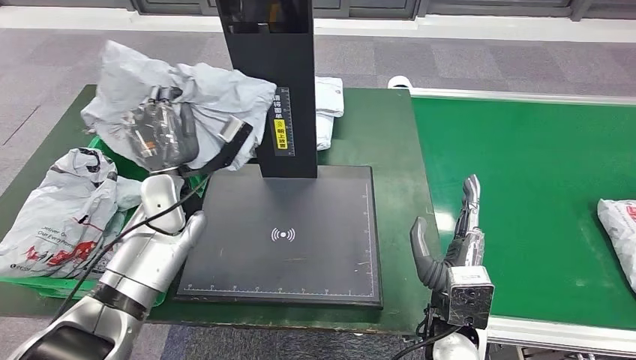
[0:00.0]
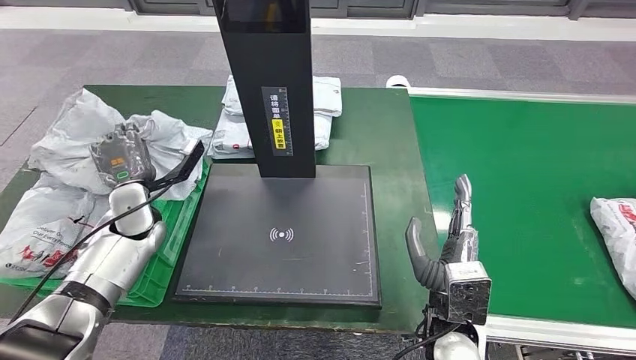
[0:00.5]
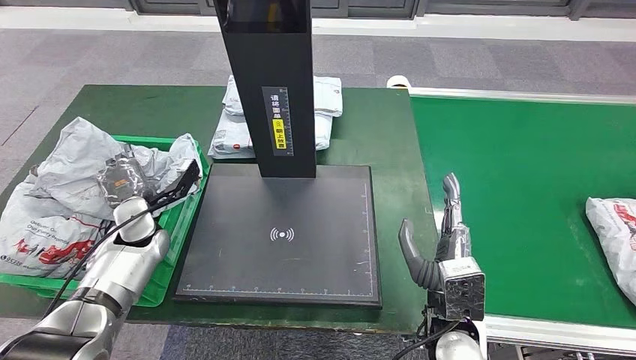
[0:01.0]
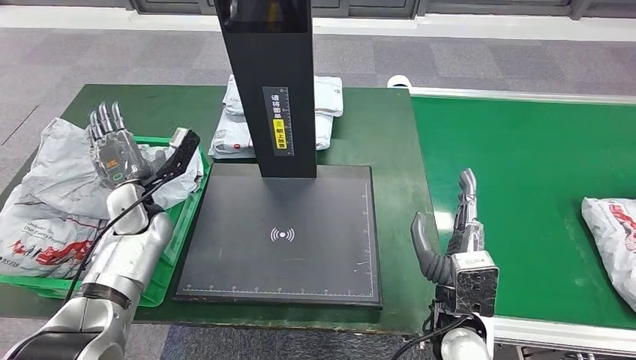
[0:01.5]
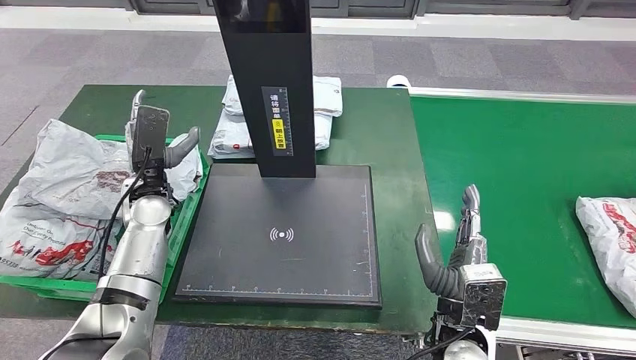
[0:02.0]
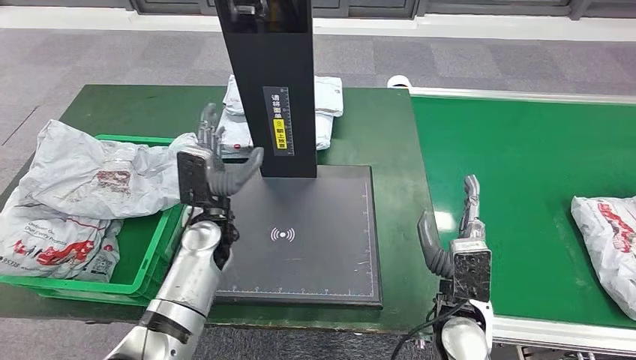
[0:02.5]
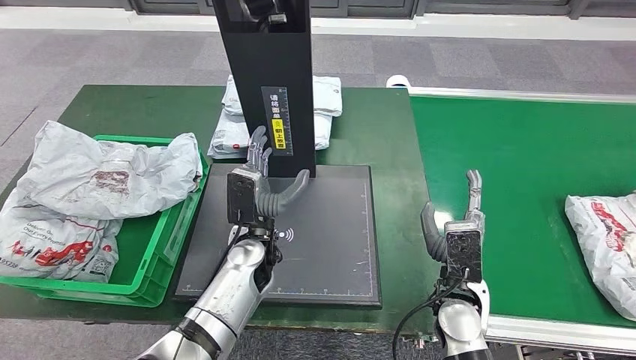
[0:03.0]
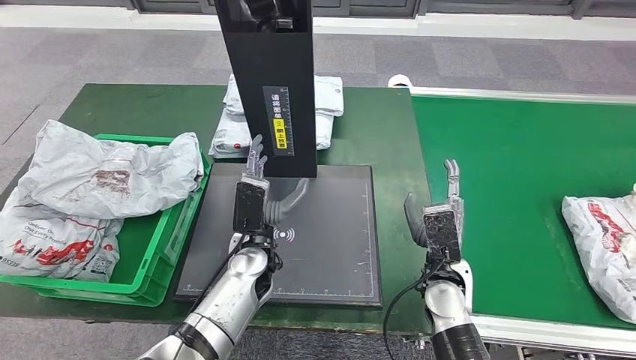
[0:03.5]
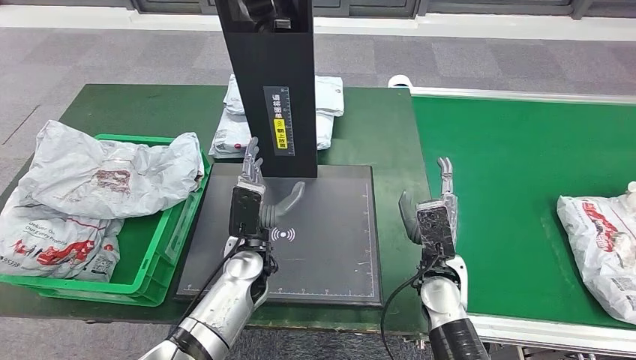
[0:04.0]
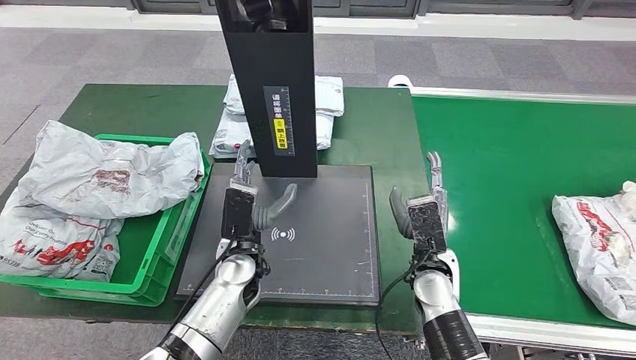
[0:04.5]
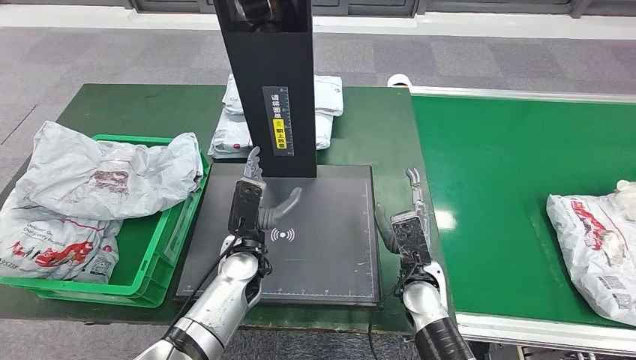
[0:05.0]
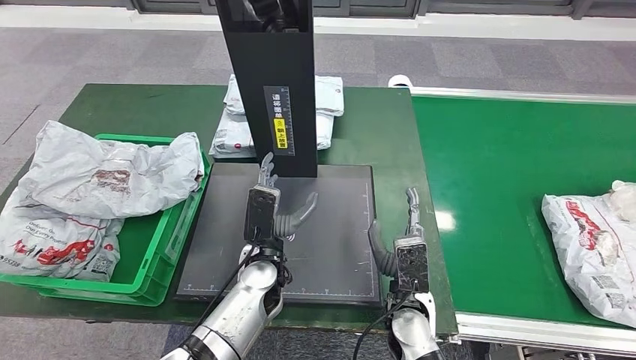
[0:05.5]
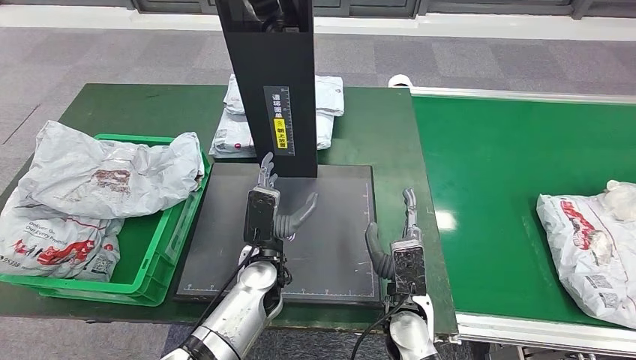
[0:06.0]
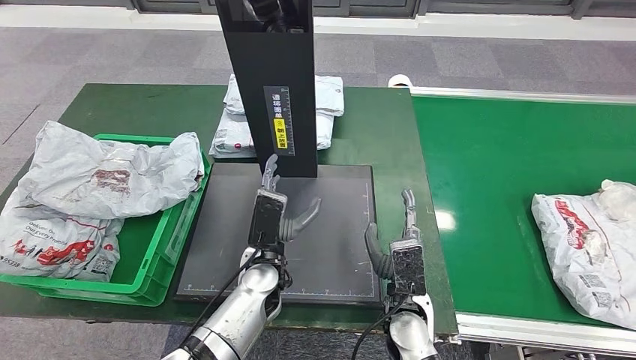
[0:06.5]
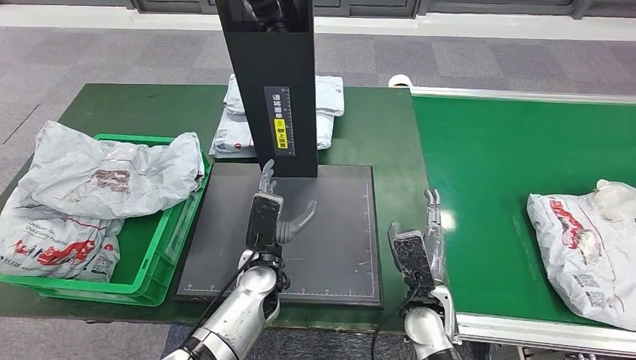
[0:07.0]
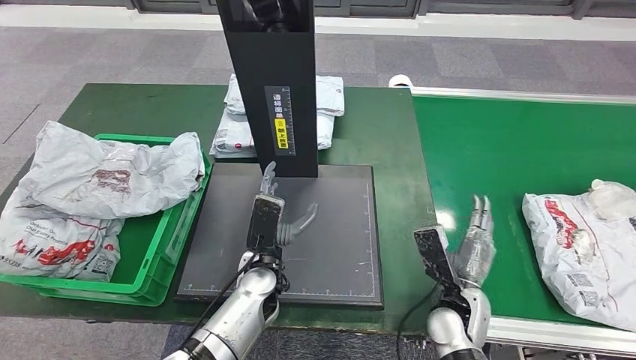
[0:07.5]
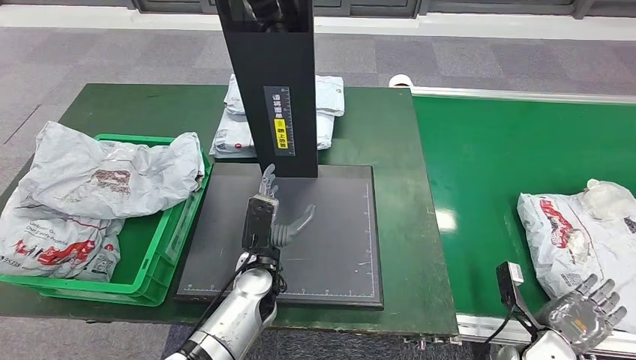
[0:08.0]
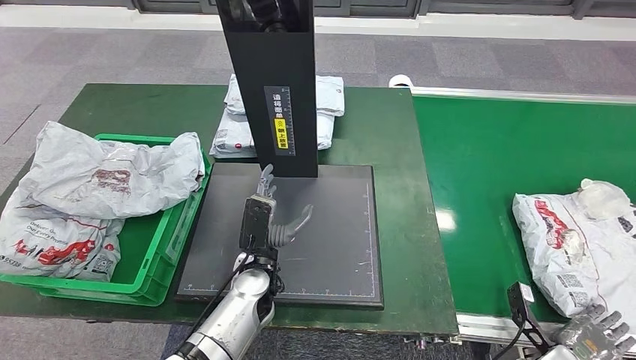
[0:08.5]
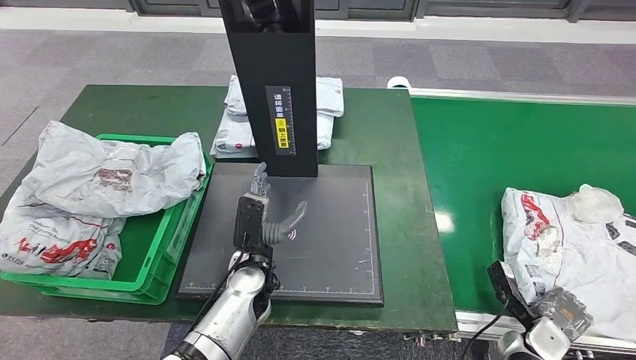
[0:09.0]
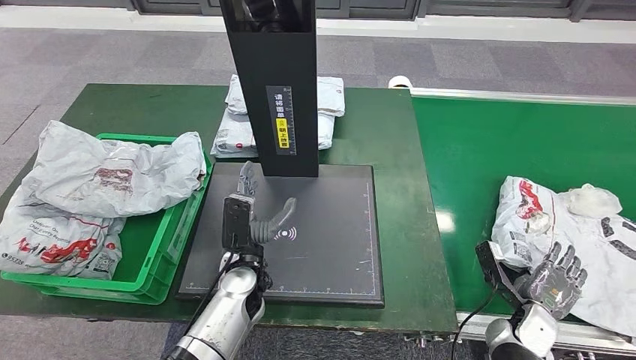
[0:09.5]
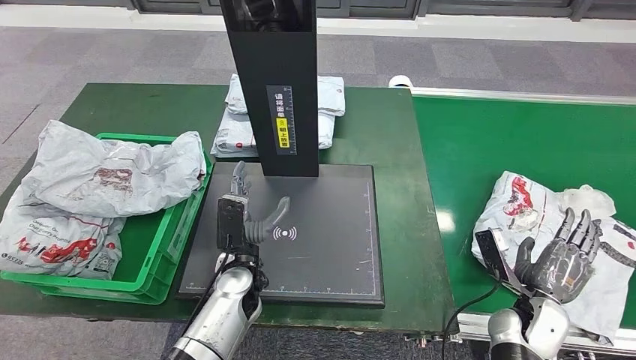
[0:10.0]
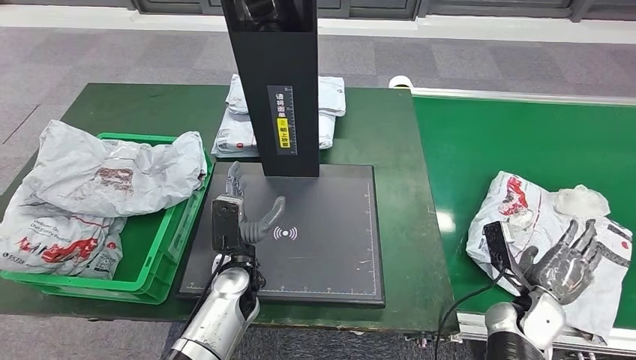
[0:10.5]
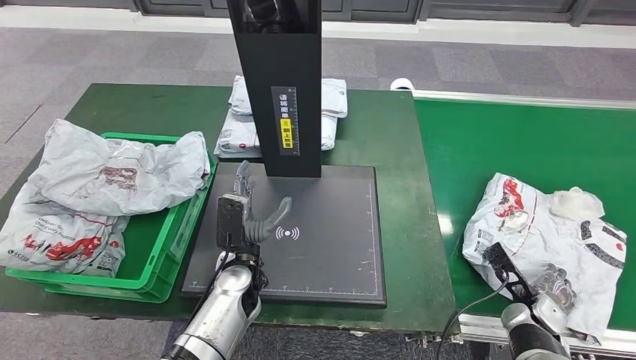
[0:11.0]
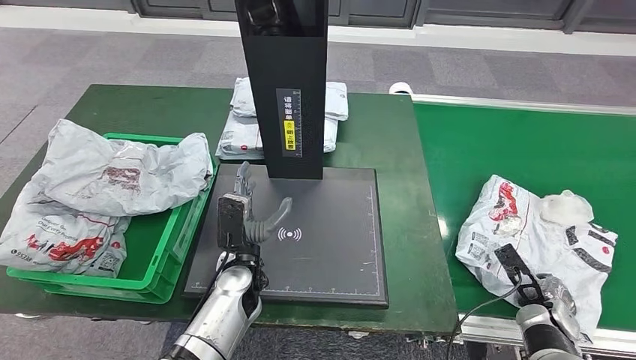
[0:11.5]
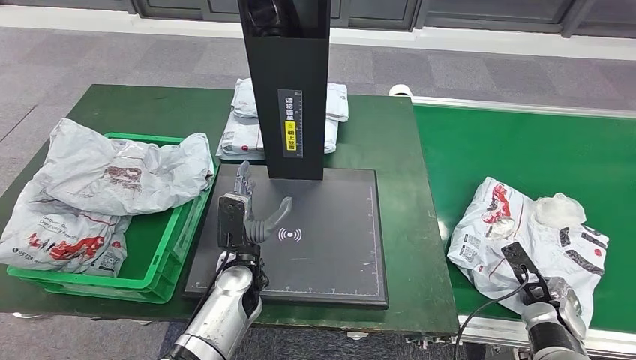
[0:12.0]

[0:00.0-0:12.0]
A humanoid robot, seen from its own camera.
Step, 0:00.0 to 0:02.0: Place the parcel into the delivery box.
0:04.0 to 0:06.0: The right hand shifts approximately 10 cm to the left and backward.
0:06.0 to 0:08.0: The right hand heads to the right, covering some 25 cm.
0:08.0 to 0:10.0: The right hand is displaced upward by approximately 5 cm.

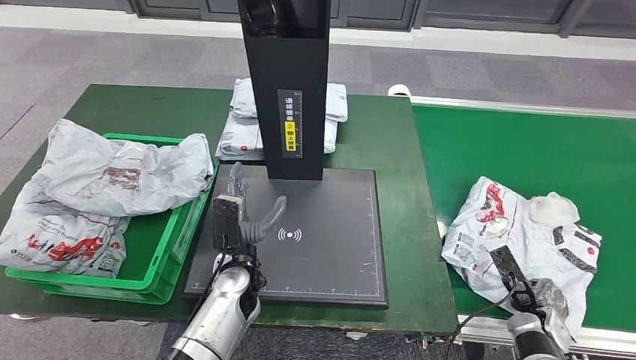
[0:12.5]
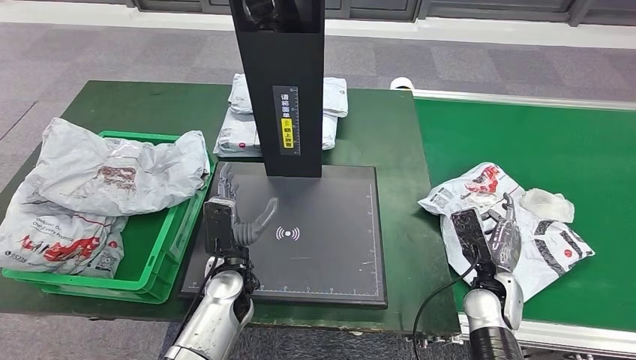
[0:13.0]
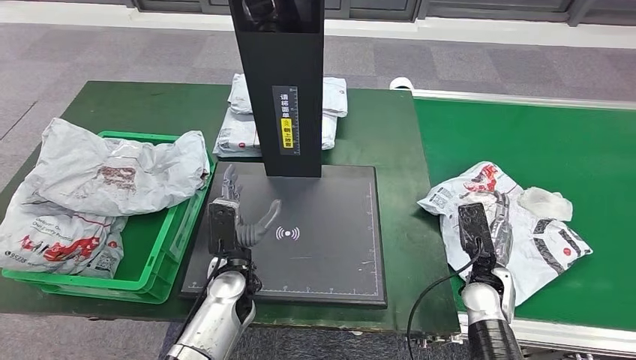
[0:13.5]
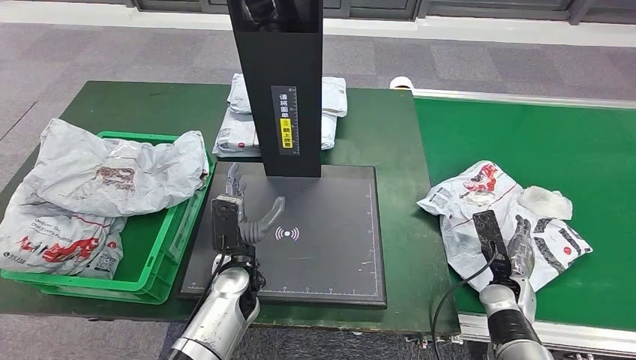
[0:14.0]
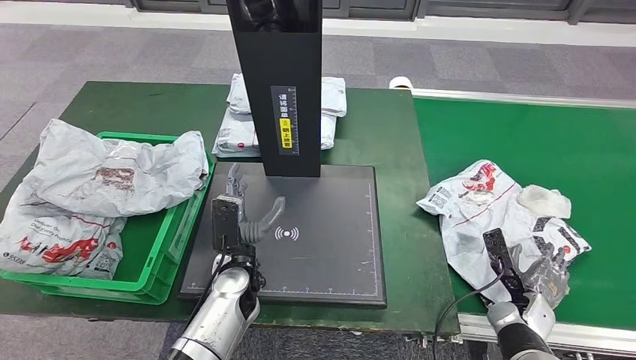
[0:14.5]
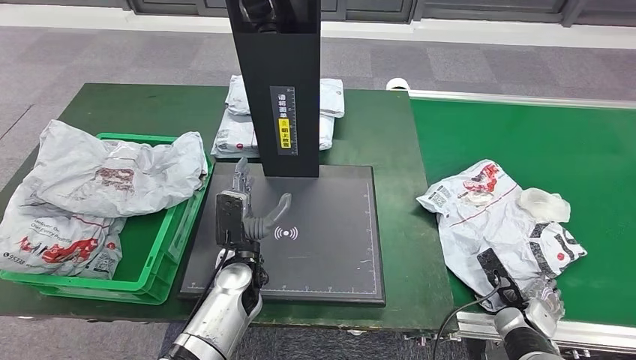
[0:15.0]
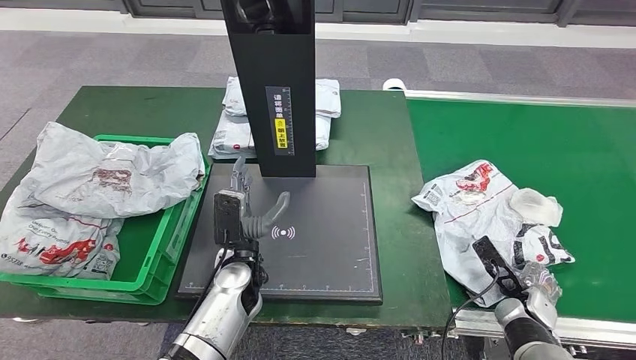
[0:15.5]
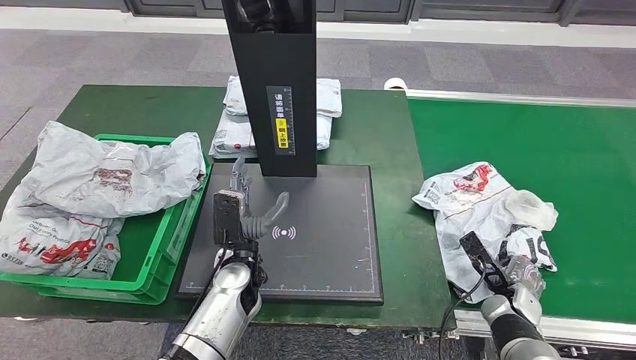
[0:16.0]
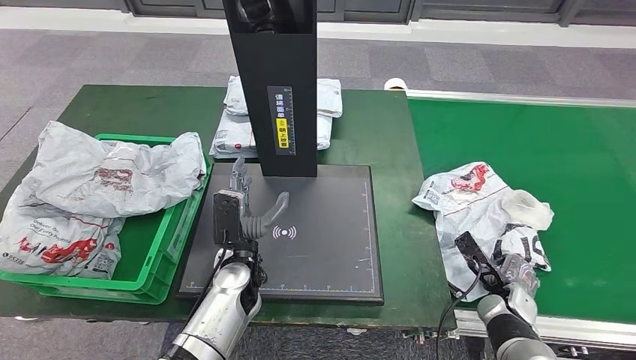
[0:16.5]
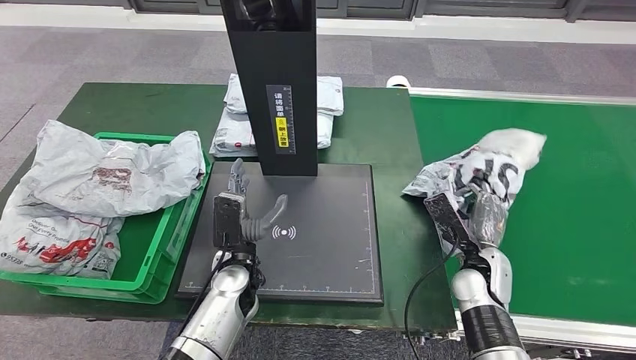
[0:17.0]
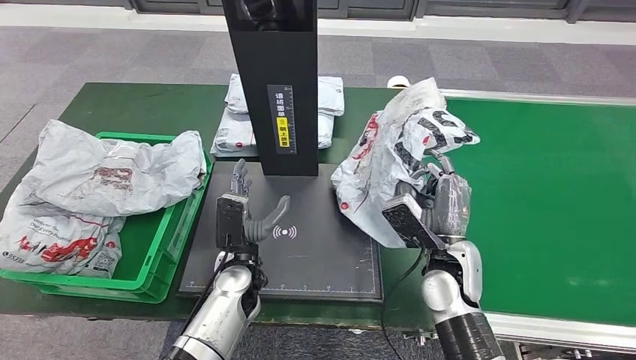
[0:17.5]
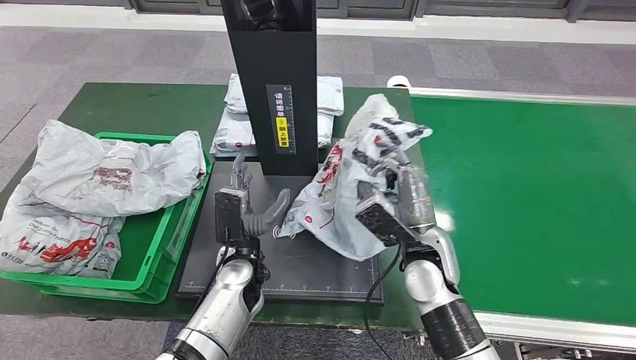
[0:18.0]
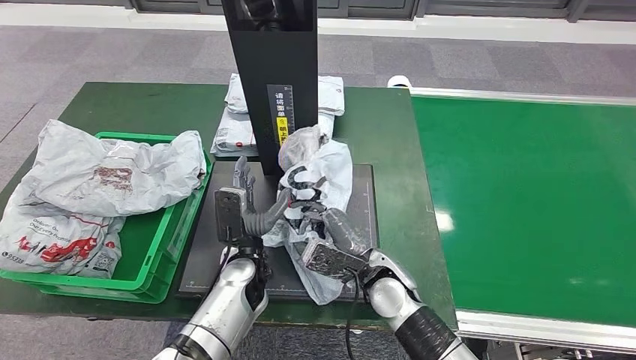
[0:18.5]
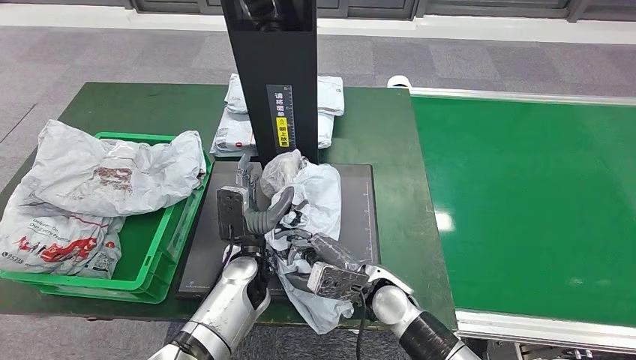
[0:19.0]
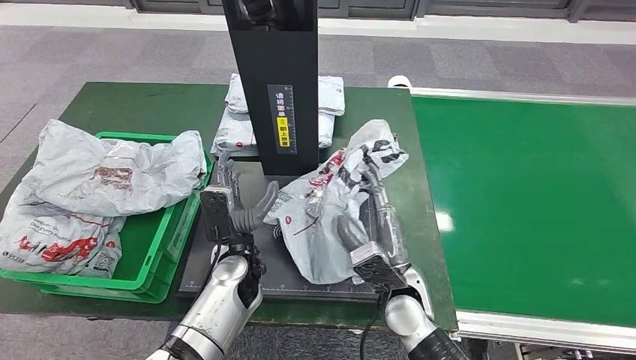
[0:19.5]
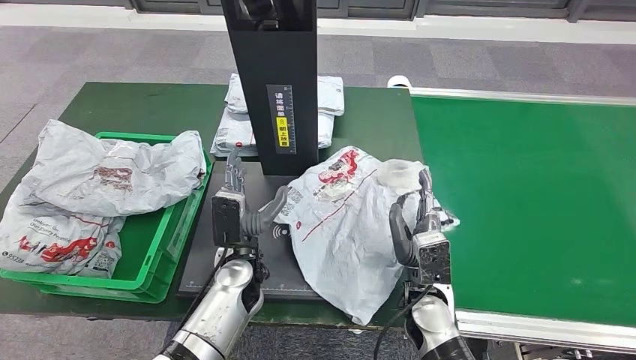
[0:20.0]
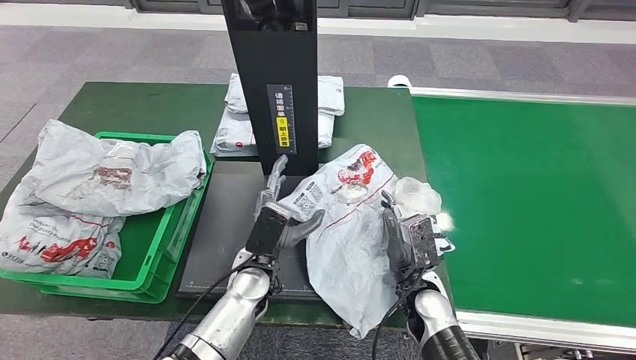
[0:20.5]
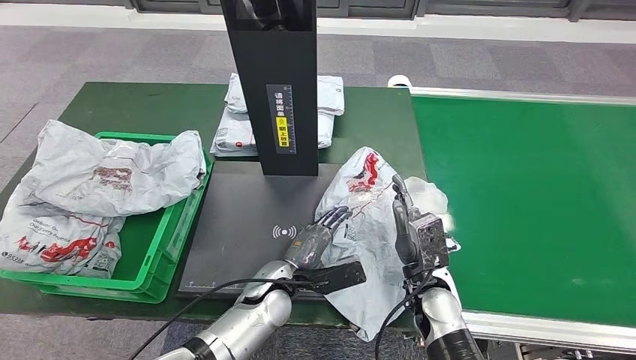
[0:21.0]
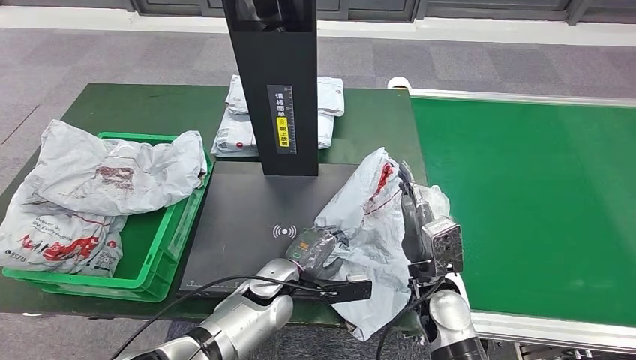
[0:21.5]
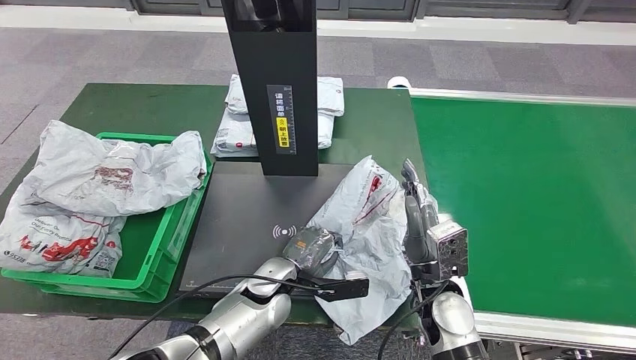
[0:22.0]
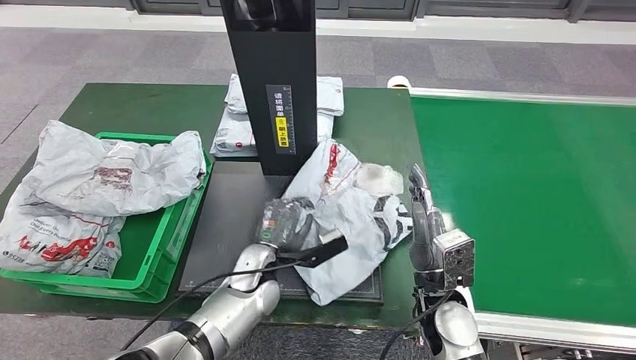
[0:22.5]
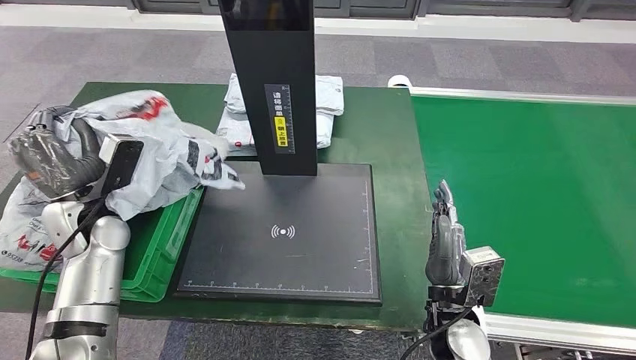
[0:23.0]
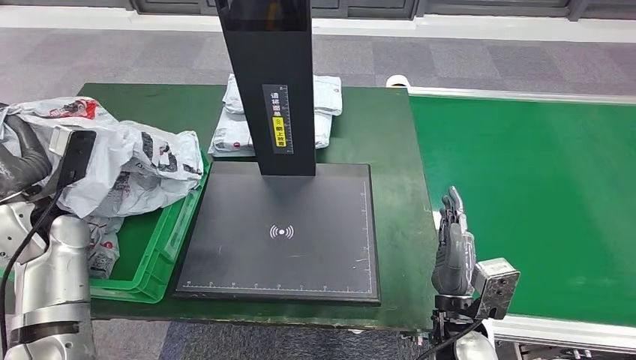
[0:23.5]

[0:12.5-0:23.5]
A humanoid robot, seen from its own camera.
Step, 0:14.0 to 0:17.5: Pick up the parcel from the conveyor belt.
Step, 0:18.0 to 0:20.5: Place the parcel onto the inbound machine.
Step, 0:21.0 to 0:23.5: Pick up the parcel from the inbound machine.
0:18.0 to 0:20.0: The right hand travels downward and backward by about 10 cm.
0:20.0 to 0:21.5: The left hand ends up roughly 5 cm from where it was.
